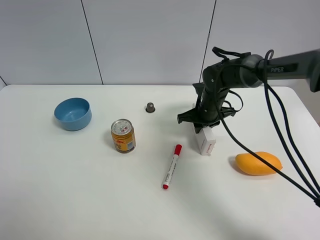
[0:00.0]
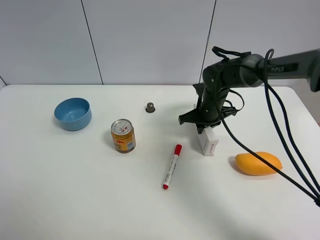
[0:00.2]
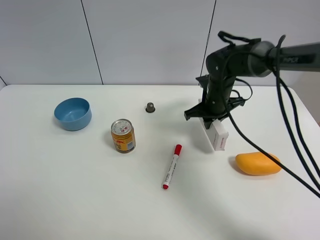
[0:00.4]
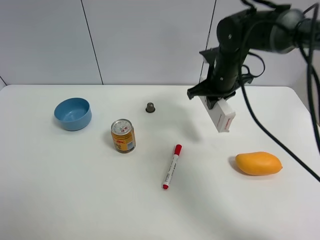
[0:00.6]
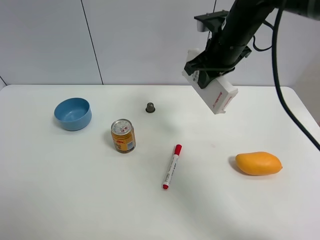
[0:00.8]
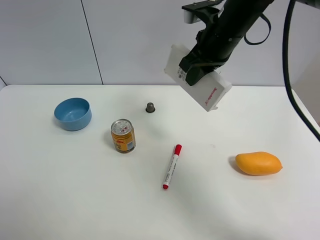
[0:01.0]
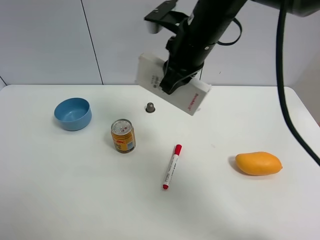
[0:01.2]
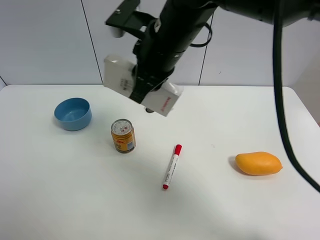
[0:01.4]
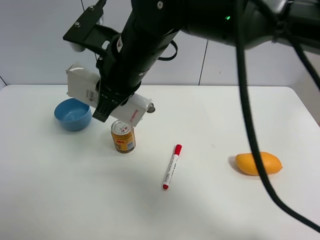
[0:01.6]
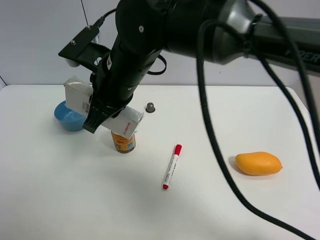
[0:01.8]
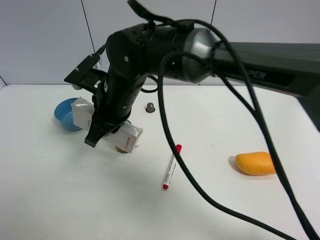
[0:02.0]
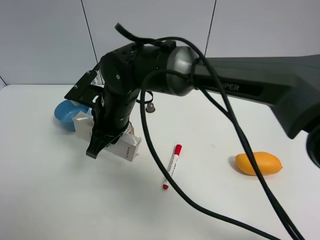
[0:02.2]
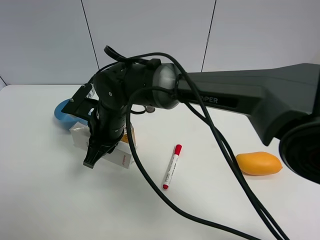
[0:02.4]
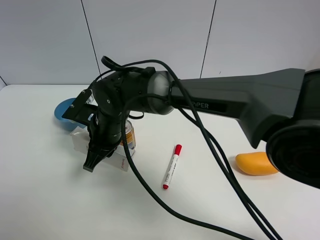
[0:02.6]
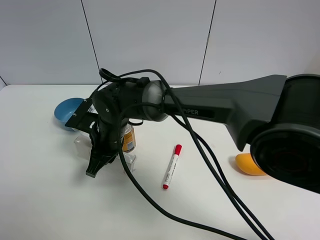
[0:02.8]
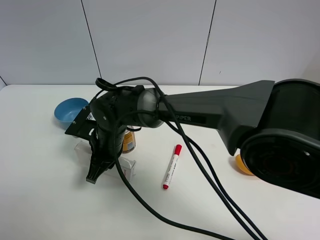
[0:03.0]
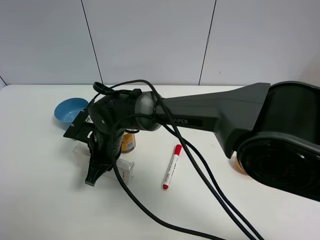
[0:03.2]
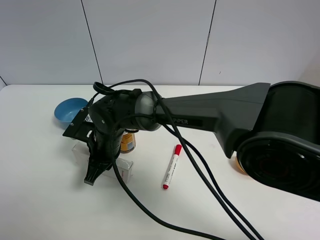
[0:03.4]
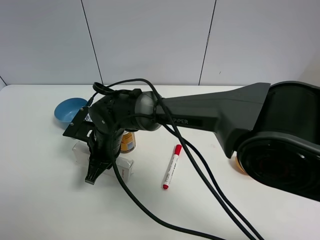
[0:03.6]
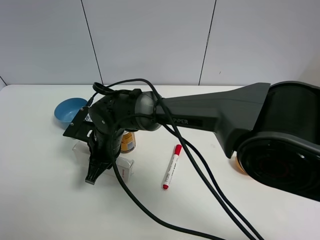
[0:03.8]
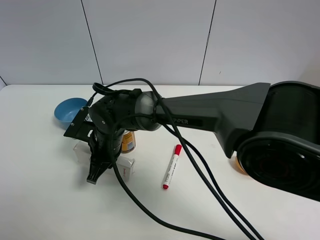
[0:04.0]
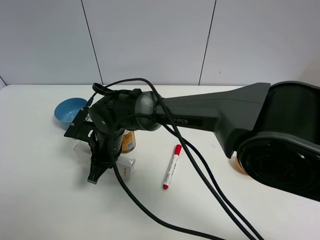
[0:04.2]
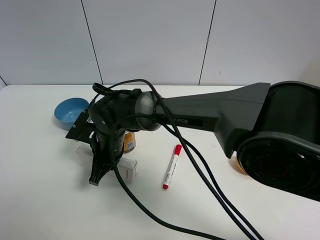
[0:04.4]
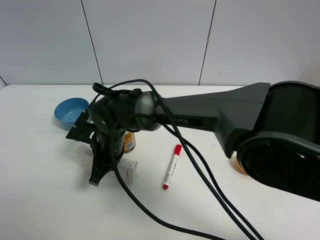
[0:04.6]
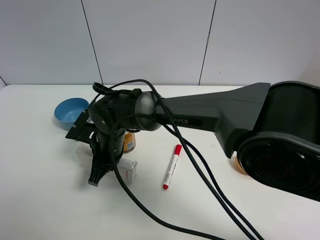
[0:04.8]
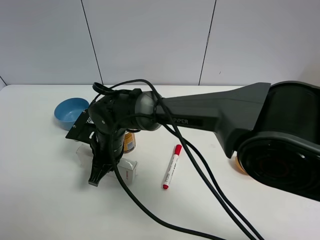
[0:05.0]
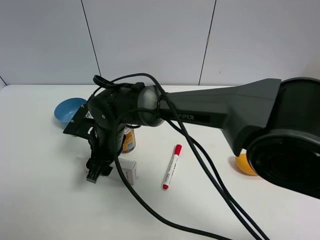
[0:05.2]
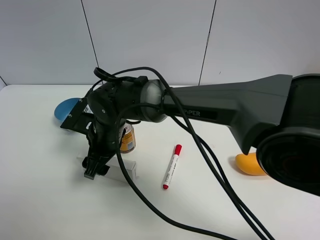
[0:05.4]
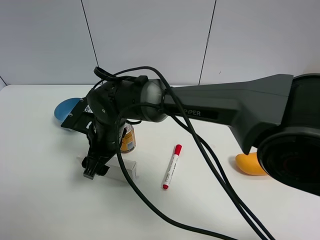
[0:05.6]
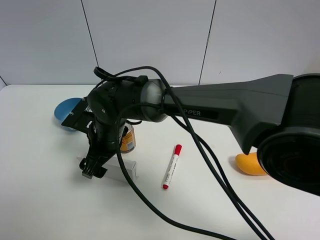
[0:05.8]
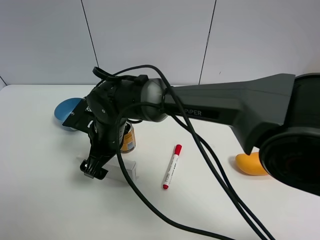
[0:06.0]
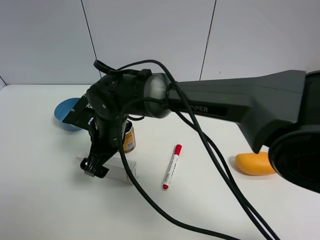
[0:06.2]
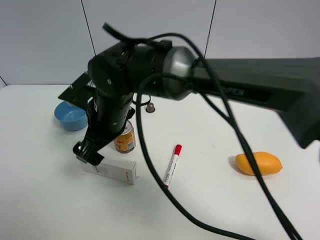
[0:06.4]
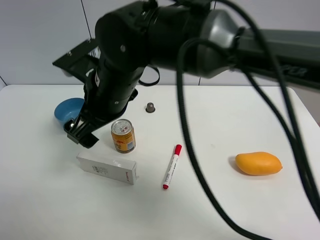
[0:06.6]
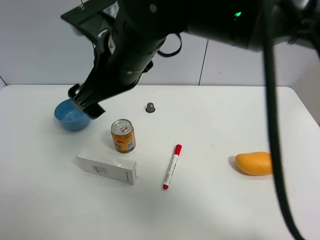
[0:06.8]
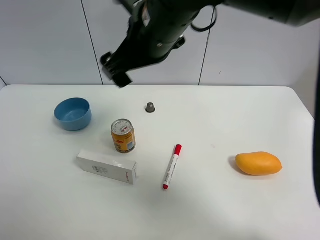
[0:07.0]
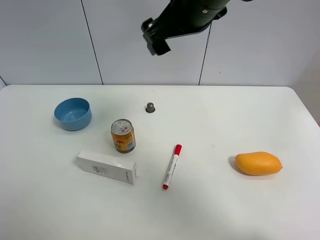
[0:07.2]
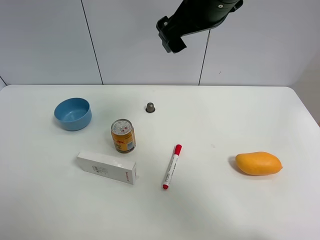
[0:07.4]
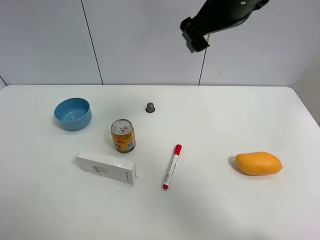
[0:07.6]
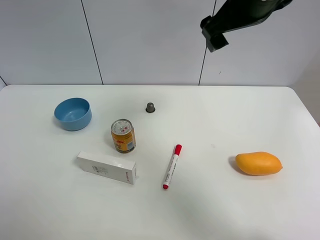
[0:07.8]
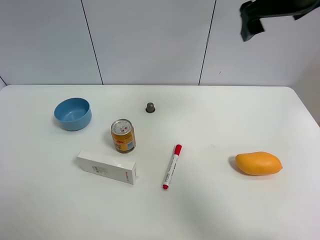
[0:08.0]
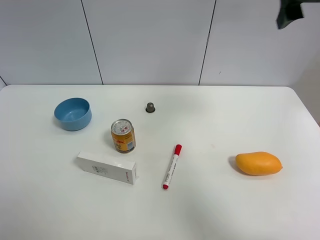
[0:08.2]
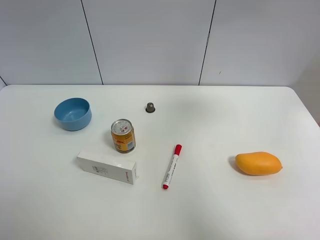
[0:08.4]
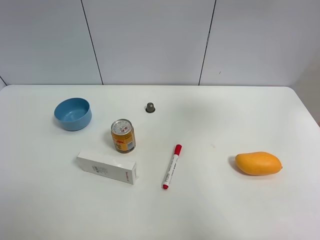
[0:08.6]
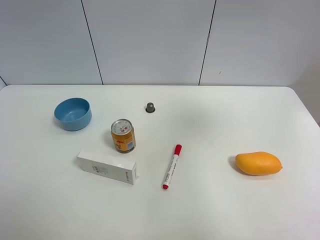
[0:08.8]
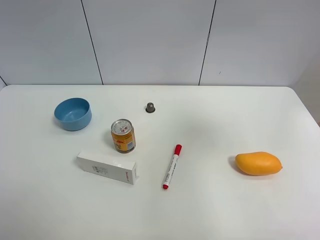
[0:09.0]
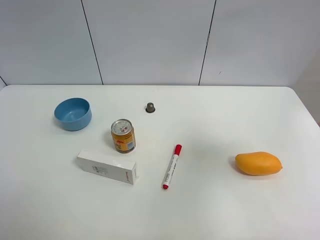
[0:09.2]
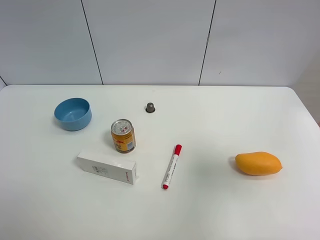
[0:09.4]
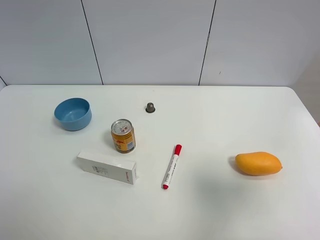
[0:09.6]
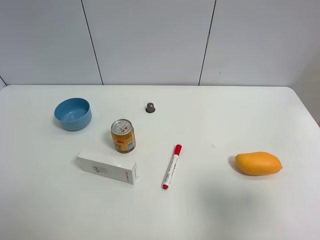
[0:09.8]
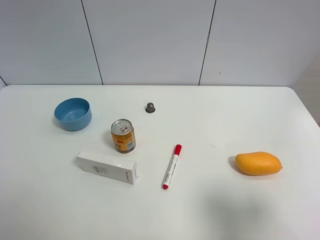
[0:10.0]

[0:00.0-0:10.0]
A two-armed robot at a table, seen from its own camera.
Task of the whole recording: the gripper move the object.
Step, 0:00.0 to 0:05.2: Place the USB box on the table with the right gripper.
0:00.0 to 0:01.4: The right gripper shifts roughly 25 cm upward, to the left and backward.
0:01.4 to 0:02.8: The right gripper travels downward and to the left by roughly 20 cm.
0:02.8 to 0:04.2: There are only small adjustments of the grippers.
0:04.2 to 0:05.8: The right gripper opens up.
0:05.8 to 0:07.2: The right gripper goes about 30 cm upward and to the right.
0:07.2 to 0:08.6: The right gripper travels to the right by approximately 25 cm.
0:08.6 to 0:10.0: The right gripper shifts roughly 30 cm backward and downward.

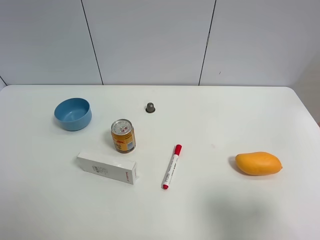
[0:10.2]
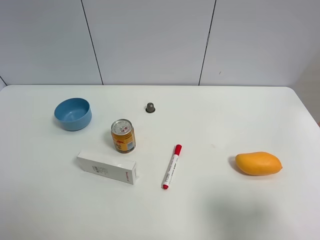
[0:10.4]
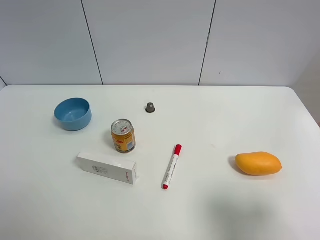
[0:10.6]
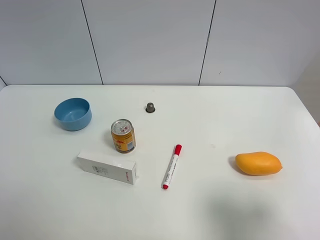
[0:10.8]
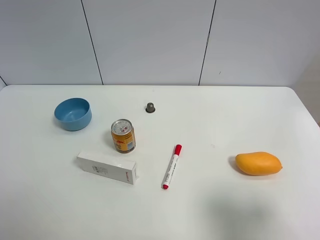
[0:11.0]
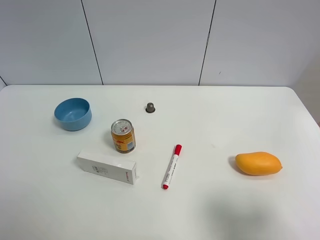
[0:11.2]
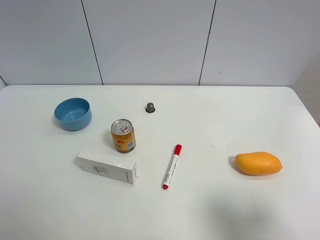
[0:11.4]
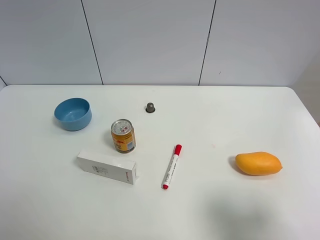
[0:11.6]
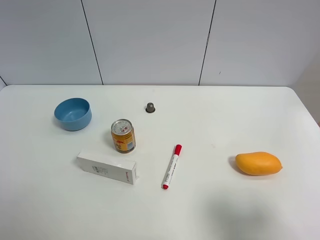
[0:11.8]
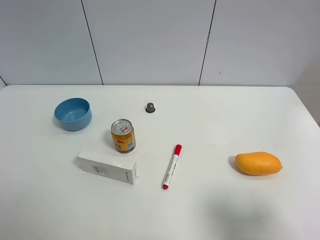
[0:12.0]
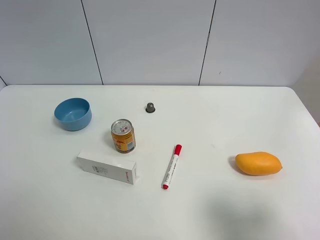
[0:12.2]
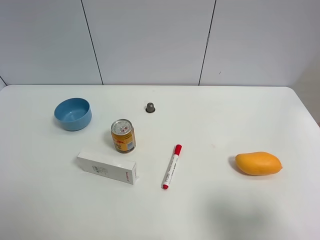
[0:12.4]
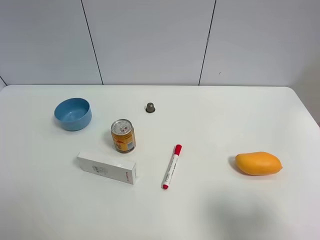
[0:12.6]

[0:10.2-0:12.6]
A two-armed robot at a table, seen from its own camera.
Task of the whole recording: the gripper move the object.
0:10.2 to 0:12.6: Both grippers stay about where they are.

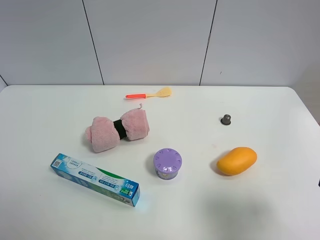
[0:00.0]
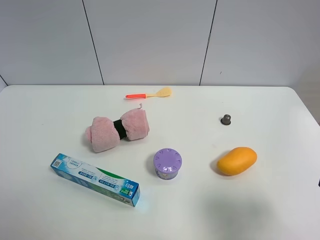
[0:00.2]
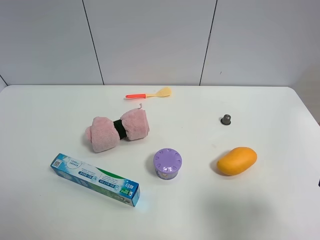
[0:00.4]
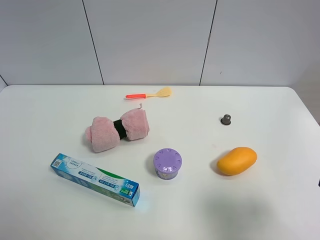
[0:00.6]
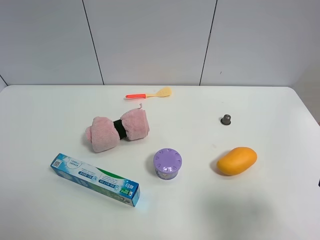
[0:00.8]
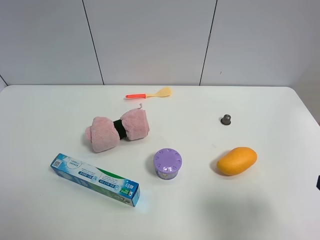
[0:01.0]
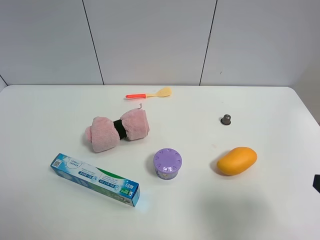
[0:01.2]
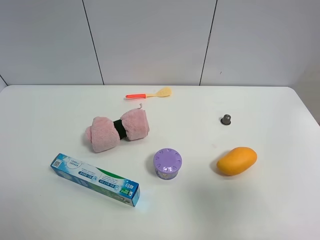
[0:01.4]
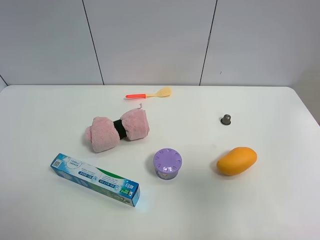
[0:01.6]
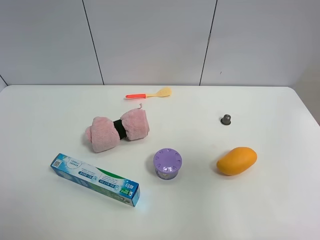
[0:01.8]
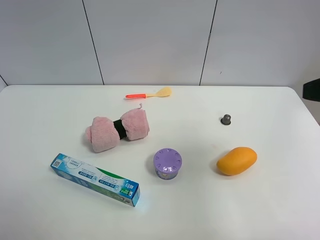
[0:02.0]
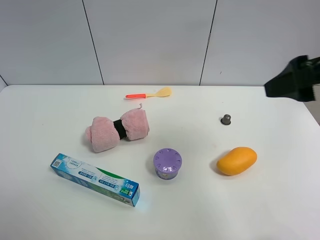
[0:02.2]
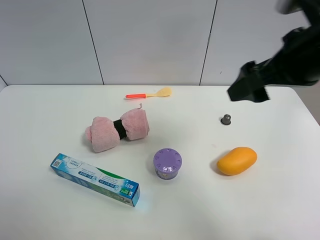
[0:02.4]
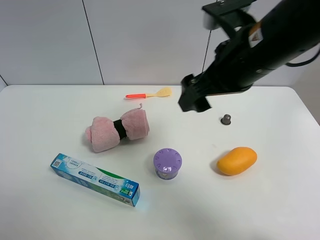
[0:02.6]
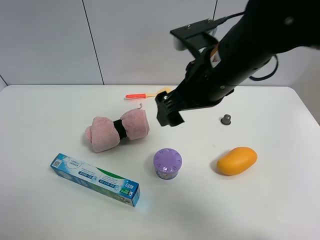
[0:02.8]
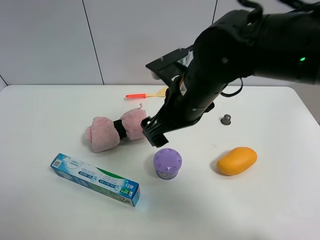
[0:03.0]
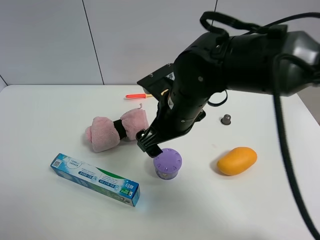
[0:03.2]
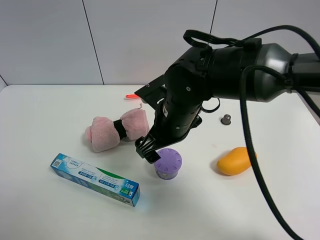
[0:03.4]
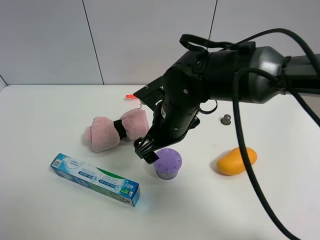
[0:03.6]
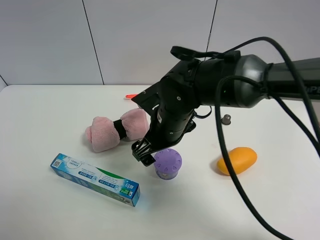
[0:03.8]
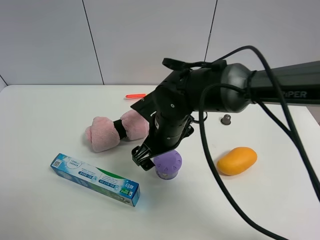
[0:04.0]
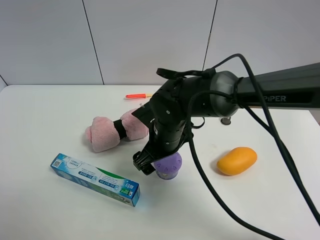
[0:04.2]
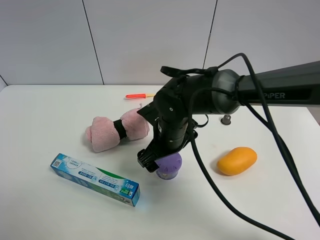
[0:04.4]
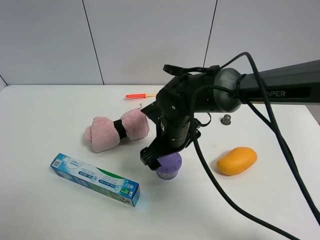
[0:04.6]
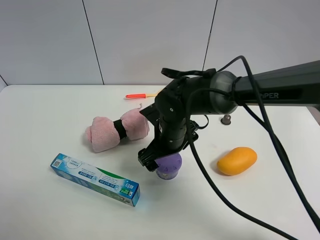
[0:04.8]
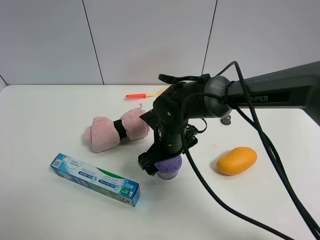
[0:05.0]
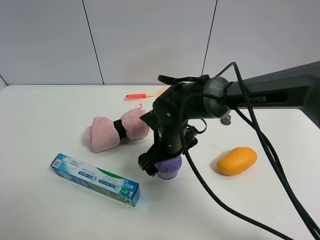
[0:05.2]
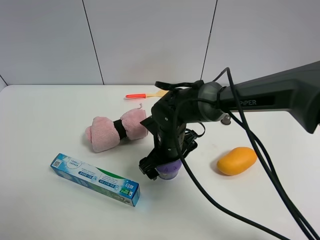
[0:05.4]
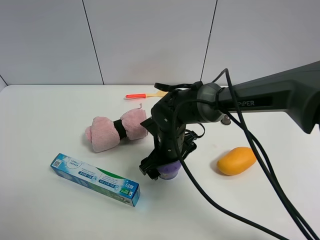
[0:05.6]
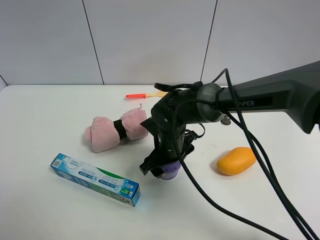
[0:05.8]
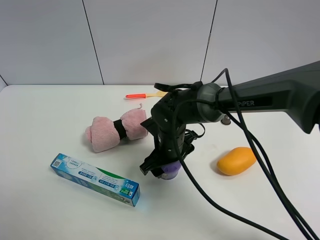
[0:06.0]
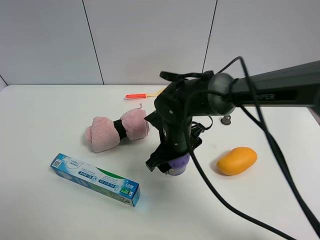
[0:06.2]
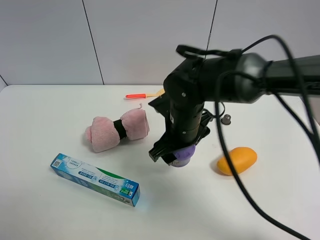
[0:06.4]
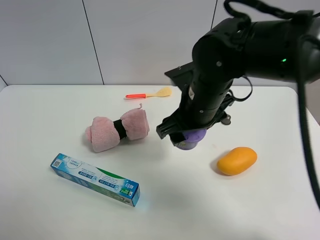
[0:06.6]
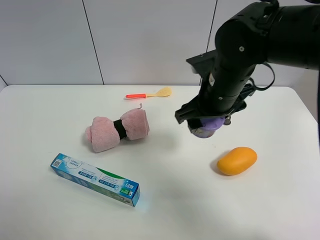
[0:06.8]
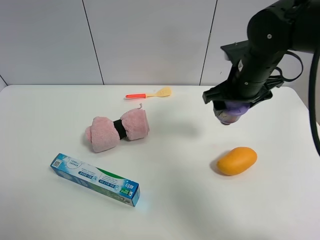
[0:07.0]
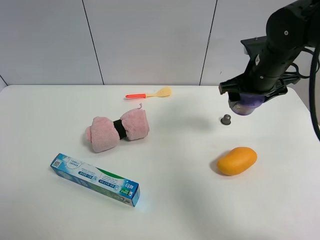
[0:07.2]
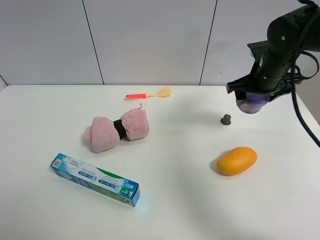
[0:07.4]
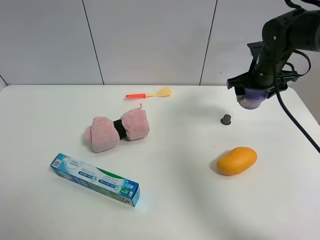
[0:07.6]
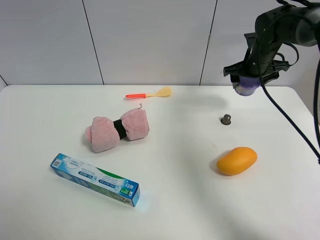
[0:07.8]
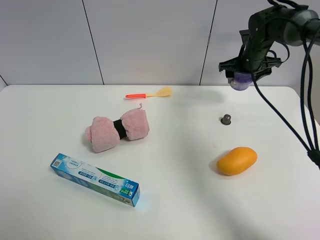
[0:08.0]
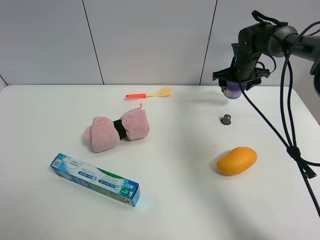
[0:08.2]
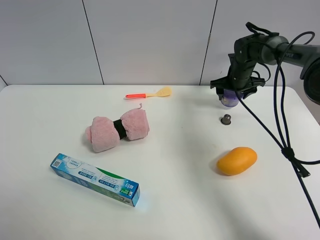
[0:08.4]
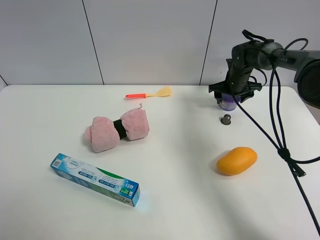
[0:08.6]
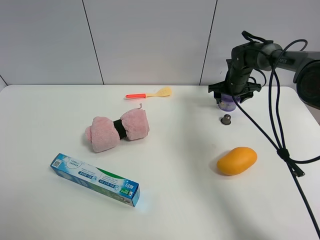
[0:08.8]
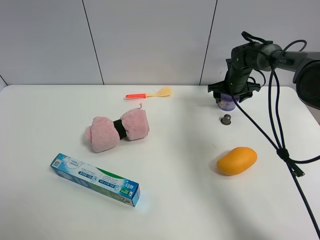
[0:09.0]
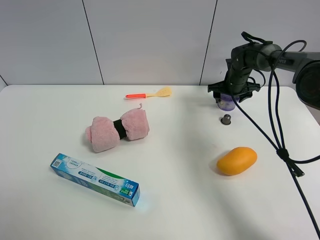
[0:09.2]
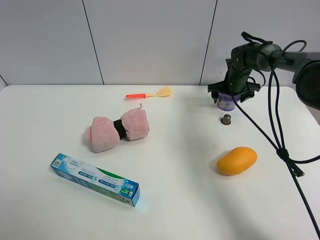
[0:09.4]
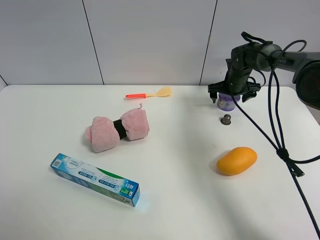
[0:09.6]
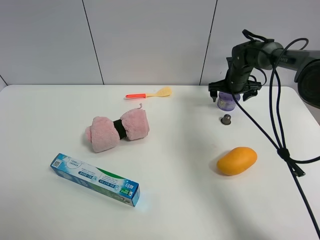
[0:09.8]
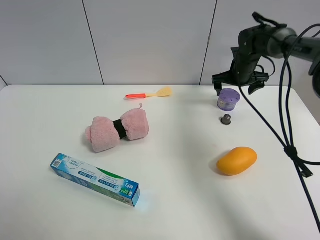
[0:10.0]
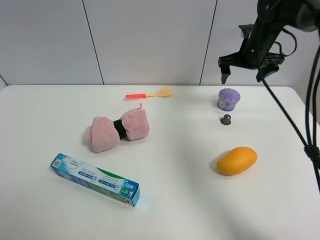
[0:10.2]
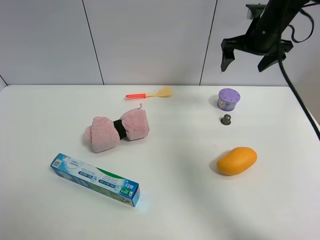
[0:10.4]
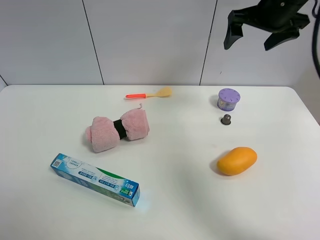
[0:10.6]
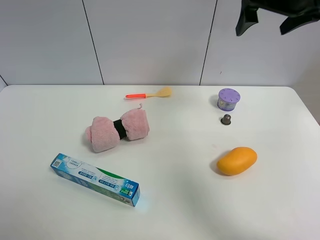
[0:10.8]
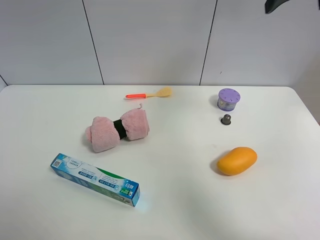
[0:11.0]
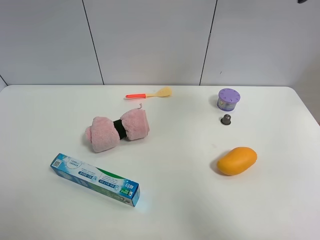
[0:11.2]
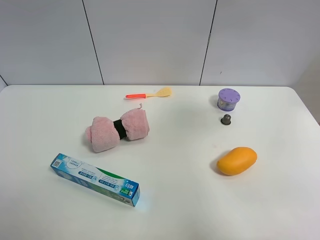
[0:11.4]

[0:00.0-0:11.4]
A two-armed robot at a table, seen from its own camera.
Task of the whole recording: the gripper move the object.
Step, 0:00.0 to 0:06.0: Grasp the Incense box with the right gripper.
Step, 0:06.2 to 0:09.8: Place the Incense box on the table with the right gripper.
0:00.0 to 0:01.4: The right gripper goes roughly 5 cm upward.
0:01.4 to 0:02.8: The right gripper shifts roughly 30 cm to the left and forward.
0:02.8 to 0:04.2: The right gripper shifts some 15 cm downward.
0:04.2 to 0:05.6: The right gripper closes its fingers.
0:05.6 to 0:07.2: The right gripper is displaced to the right and upward by about 25 cm, and closes up.
0:07.2 to 0:08.6: The right gripper travels forward and downward by roughly 20 cm.
0:08.6 to 0:10.0: The right gripper shifts some 5 cm upward, and opens.
0:10.0 to 0:11.4: The right gripper is displaced upward and backward by about 35 cm.
